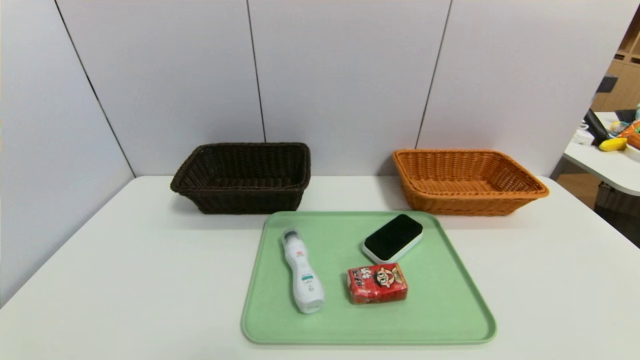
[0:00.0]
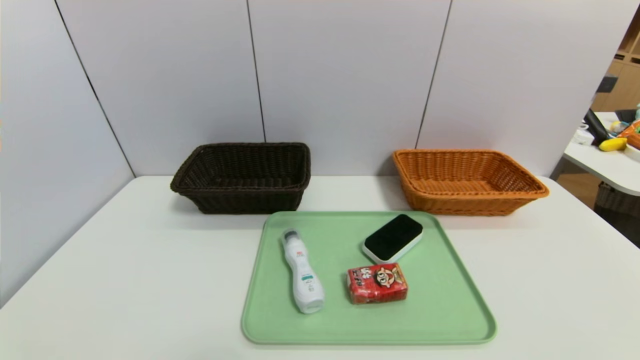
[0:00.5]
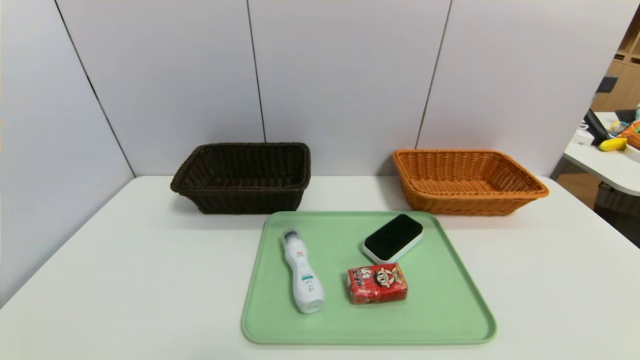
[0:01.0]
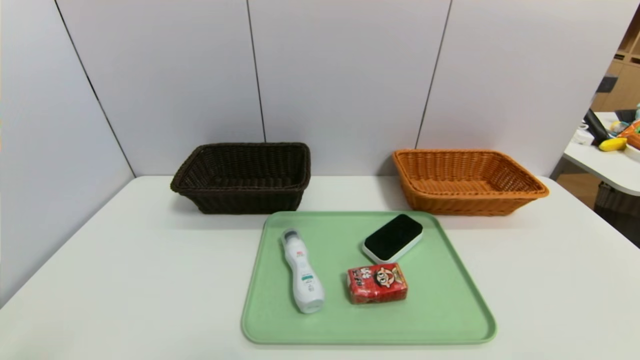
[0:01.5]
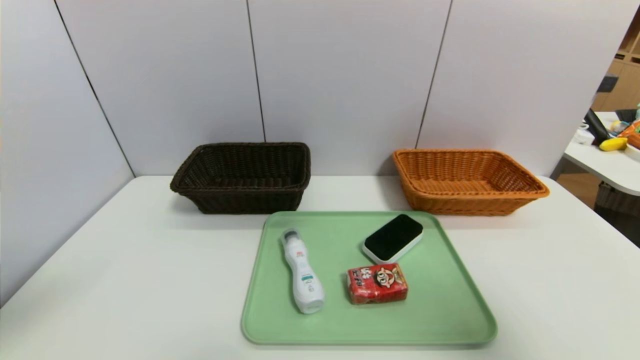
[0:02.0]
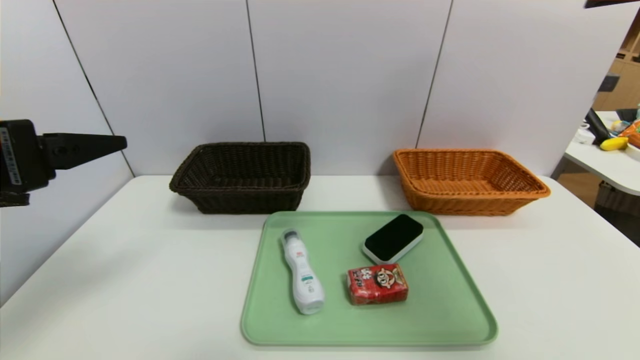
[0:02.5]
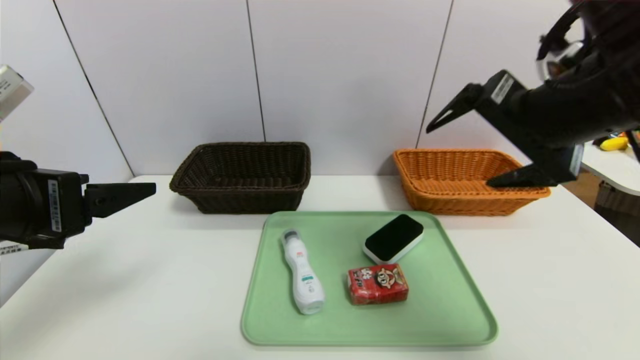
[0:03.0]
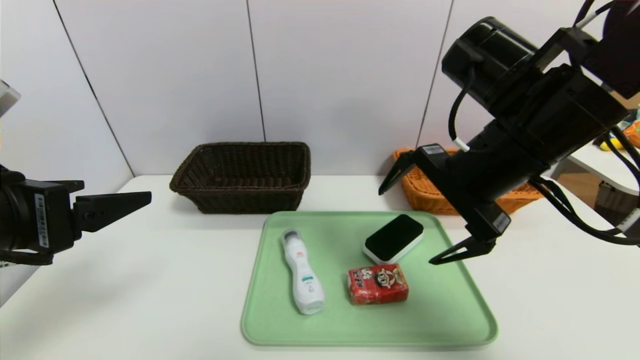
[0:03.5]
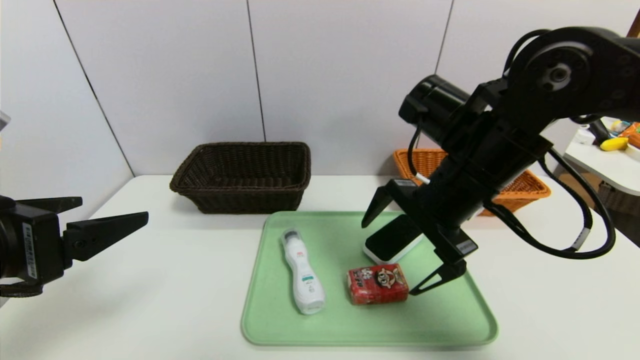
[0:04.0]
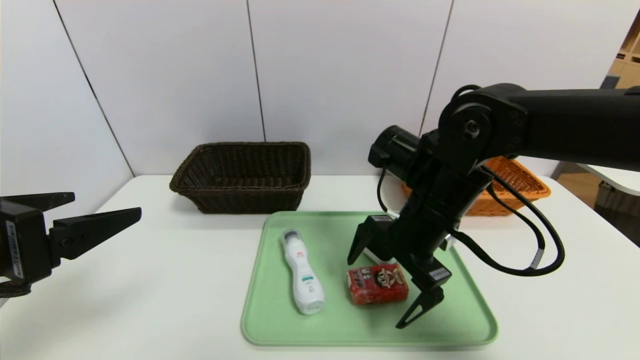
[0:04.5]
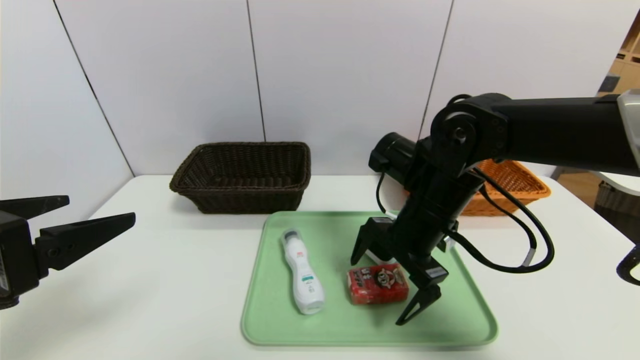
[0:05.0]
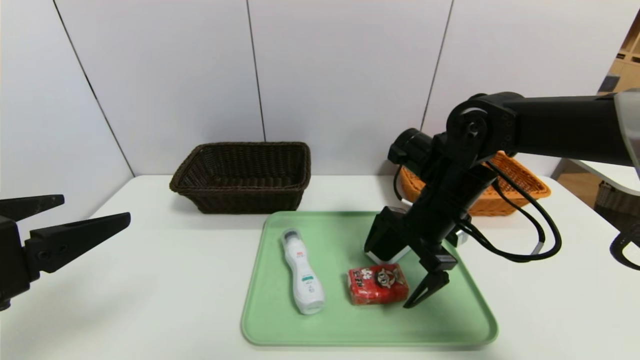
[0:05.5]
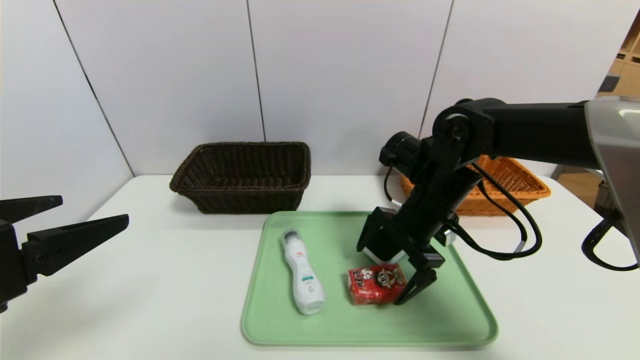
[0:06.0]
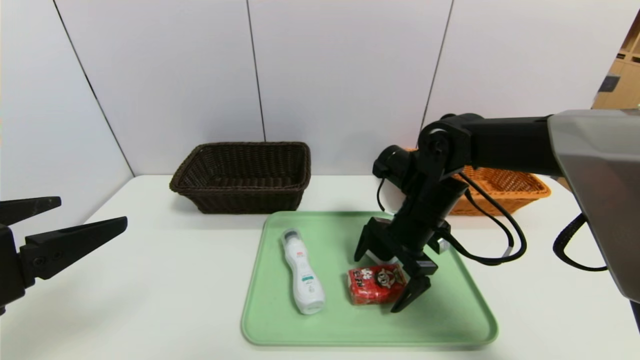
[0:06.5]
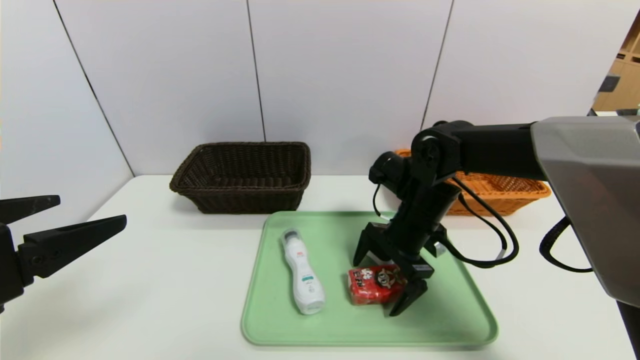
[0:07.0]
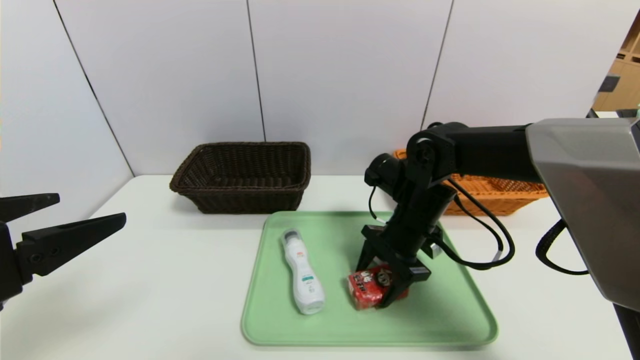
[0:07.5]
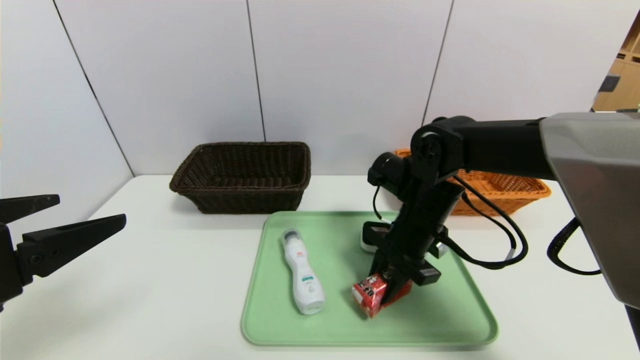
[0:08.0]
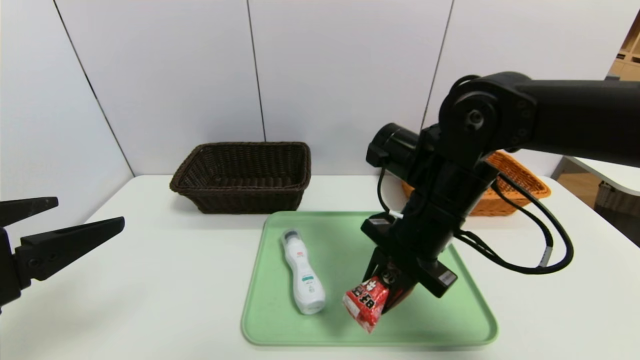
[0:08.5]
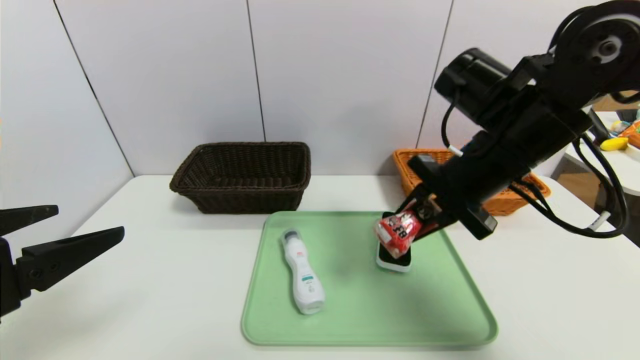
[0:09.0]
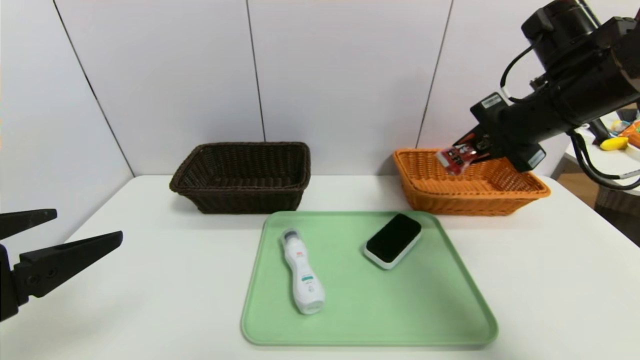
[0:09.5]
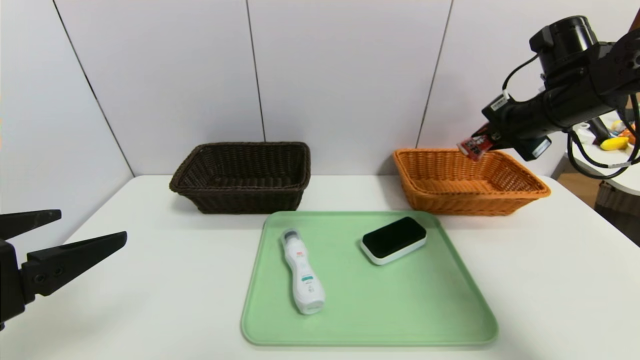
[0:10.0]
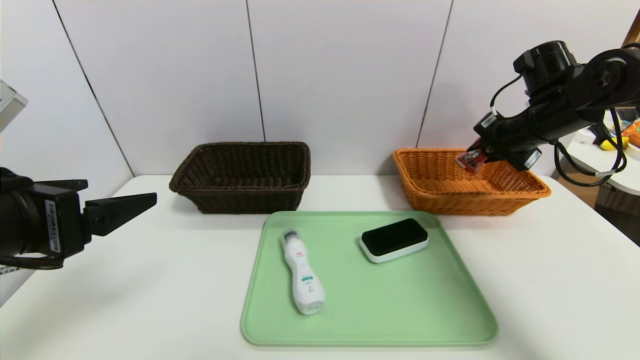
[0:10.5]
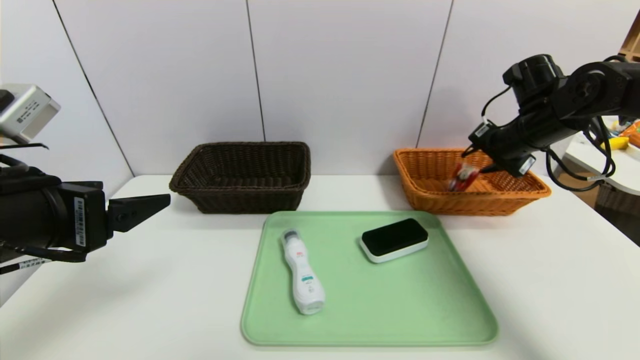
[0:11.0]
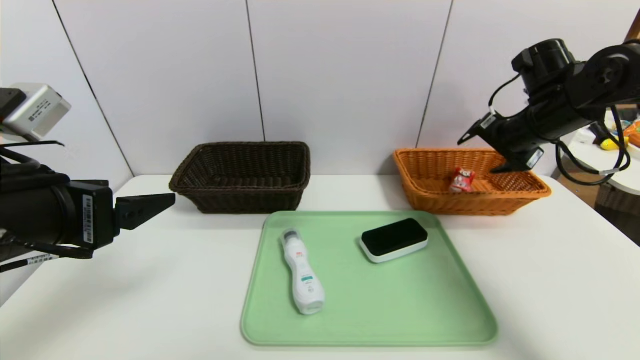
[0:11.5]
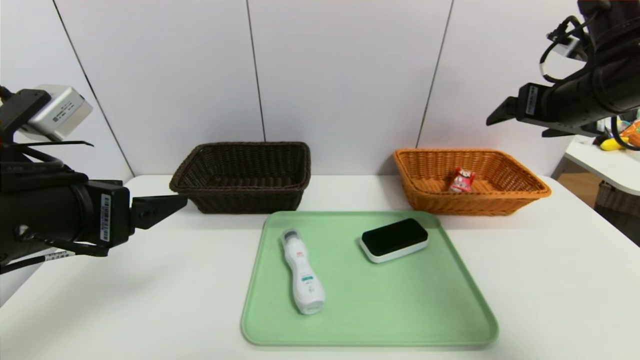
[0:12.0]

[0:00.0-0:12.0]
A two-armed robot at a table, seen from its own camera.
Task of the whole recording: place the food in the right basket with the right gripper, and place the non food items in the left basket with the left gripper.
Step, 0:00.0 to 0:11.0: Grasp the milk and put it in the right basket.
0:00.0 to 0:02.0: Both grippers travel together upward, about 30 cm.
0:02.0 to 0:04.0: The right gripper is displaced forward, to the left and downward by approximately 30 cm. The left gripper travels downward by approximately 5 cm.
0:04.0 to 0:06.0: The right gripper travels downward and forward by roughly 10 cm.
0:06.0 to 0:08.0: The right gripper closes.
0:08.0 to 0:10.0: The right gripper goes approximately 20 cm to the right and upward.
0:10.0 to 0:12.0: The right gripper travels backward by about 5 cm, and opens; the left gripper travels forward by some 5 cm.

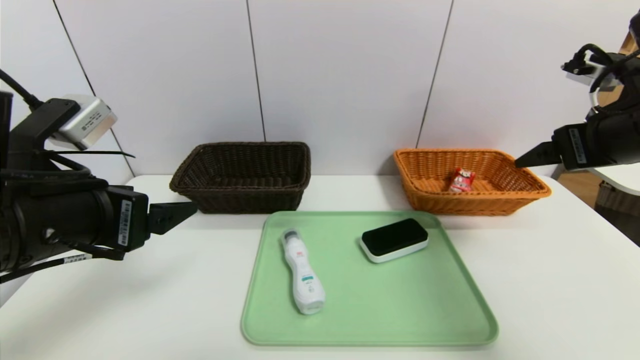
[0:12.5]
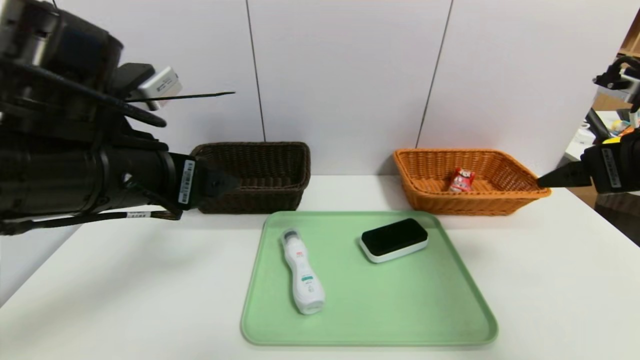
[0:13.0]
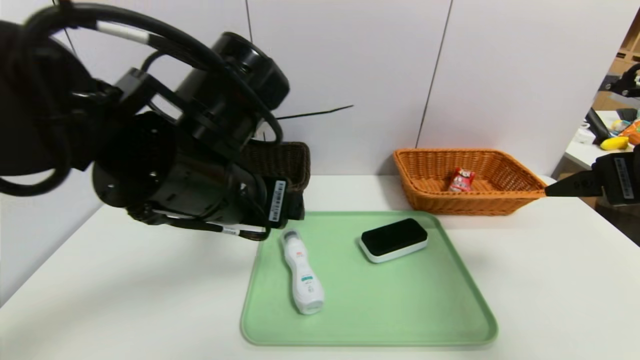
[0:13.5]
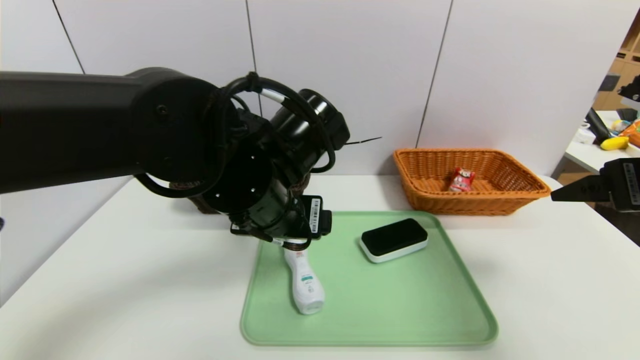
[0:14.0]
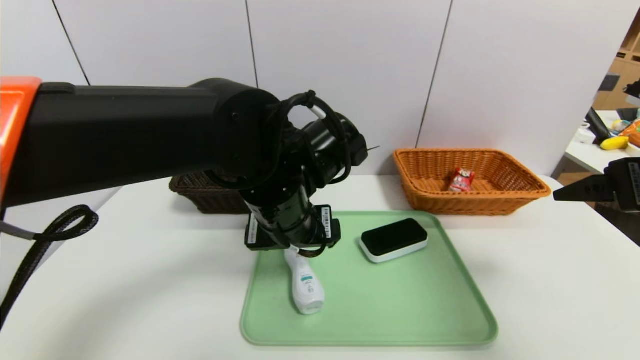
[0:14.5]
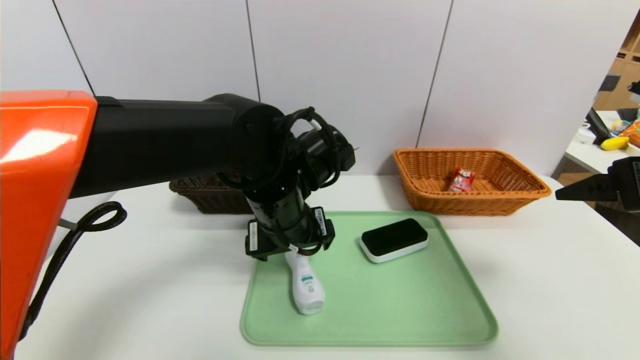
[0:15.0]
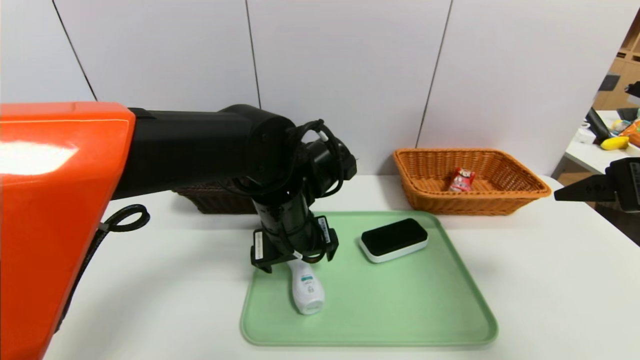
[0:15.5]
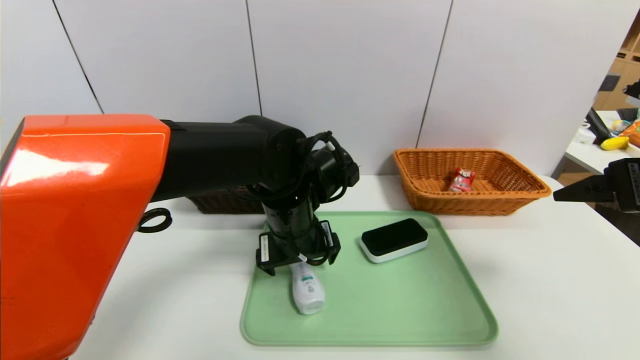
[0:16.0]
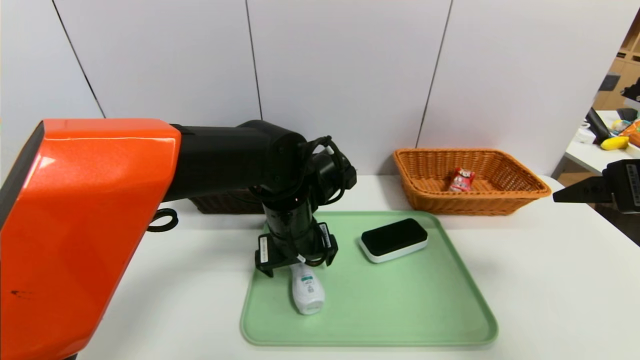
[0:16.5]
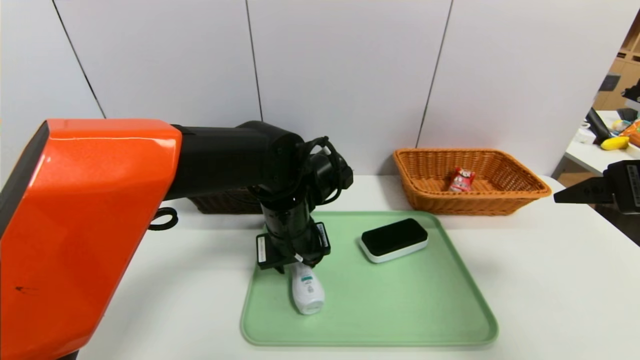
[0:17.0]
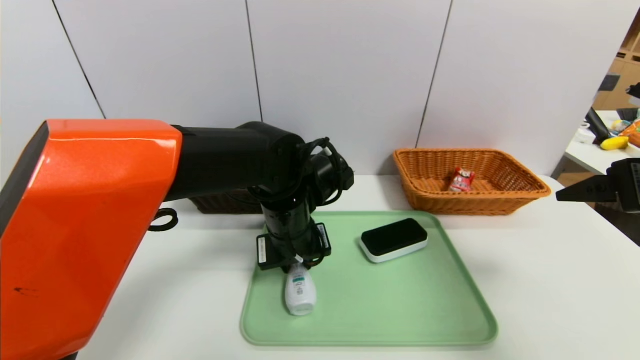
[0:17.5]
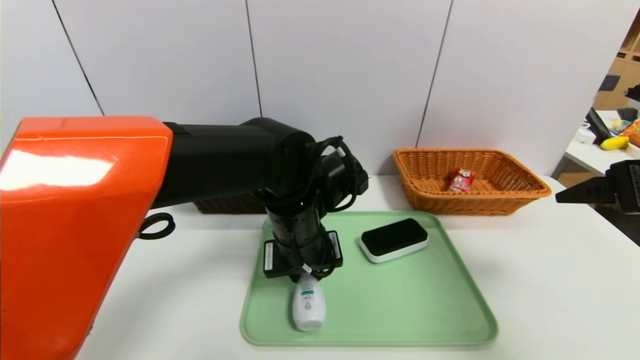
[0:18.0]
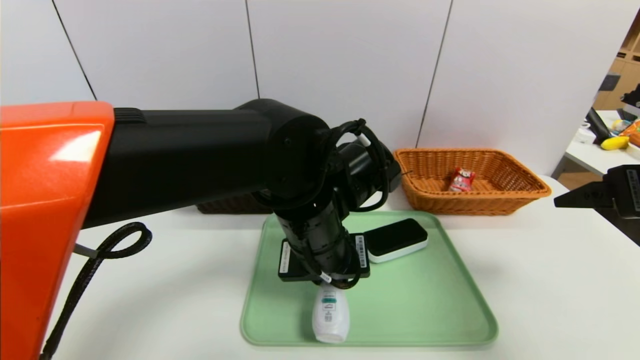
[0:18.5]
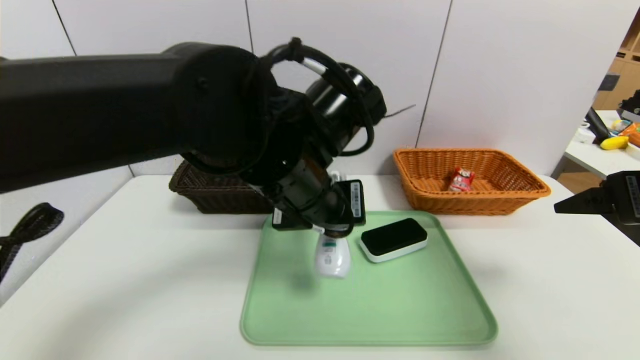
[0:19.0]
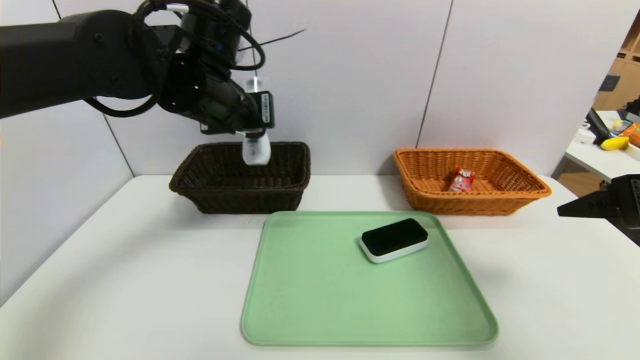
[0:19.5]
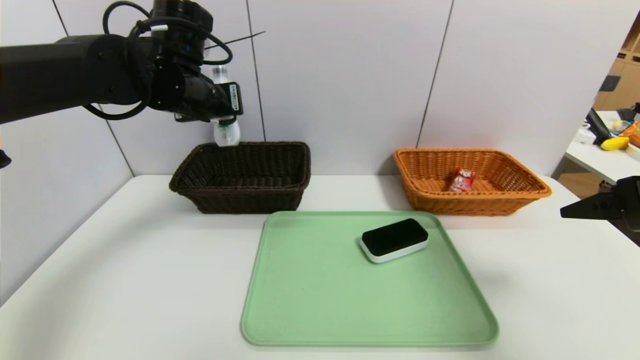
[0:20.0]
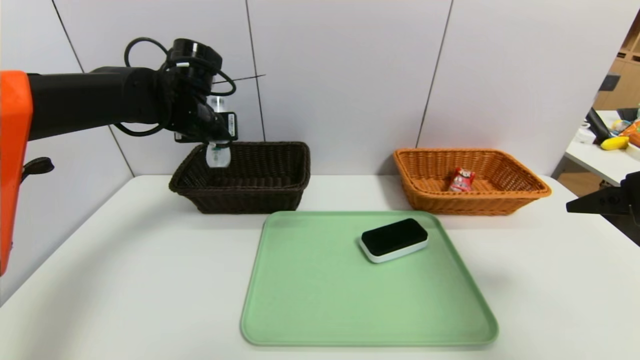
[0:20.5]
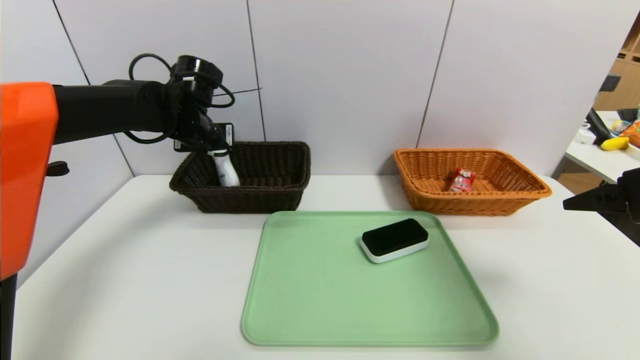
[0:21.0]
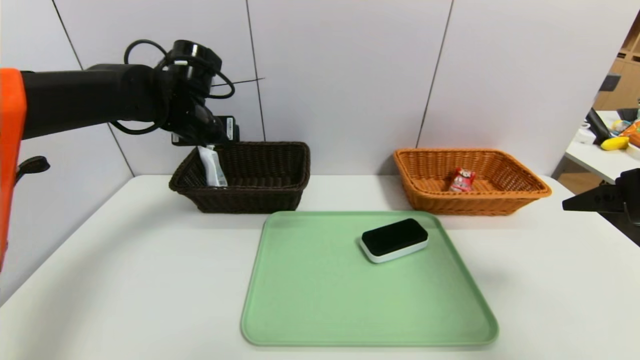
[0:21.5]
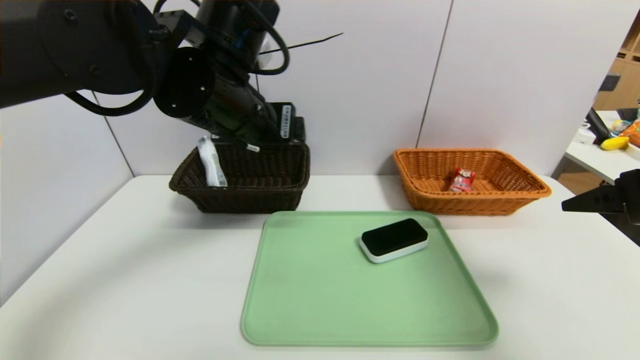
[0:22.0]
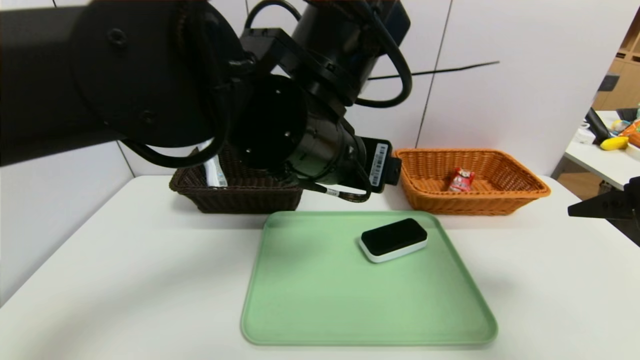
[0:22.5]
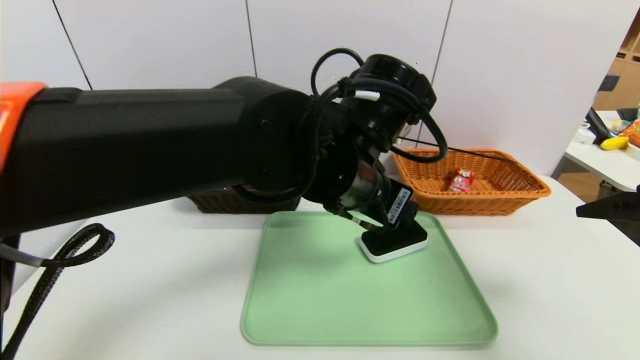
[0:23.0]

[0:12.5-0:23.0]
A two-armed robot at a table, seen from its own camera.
Task of the whole recording: place the food in the right basket with the right gripper, and place the non food items in the left basket with the left gripper.
Step, 0:12.5 to 0:21.0: Grasp the cleaning agent and put it in the left basket.
0:12.5 to 0:14.5: The left gripper shifts about 20 cm to the right and forward; the right gripper goes approximately 5 cm backward.
0:14.5 to 0:16.5: The left gripper shifts about 5 cm downward.
0:16.5 to 0:19.0: The left gripper moves upward and backward, about 10 cm, and closes its fingers.
0:19.0 to 0:21.0: The left gripper travels forward and to the left by about 25 cm.
0:21.0 to 0:23.0: The left gripper shifts some 30 cm to the right and backward, and opens up.
